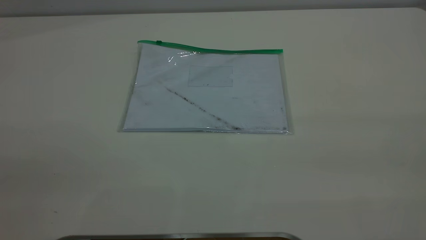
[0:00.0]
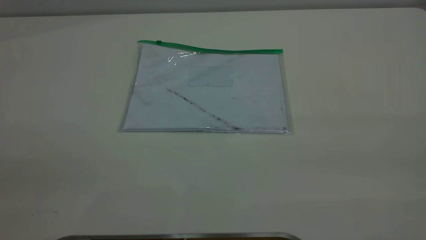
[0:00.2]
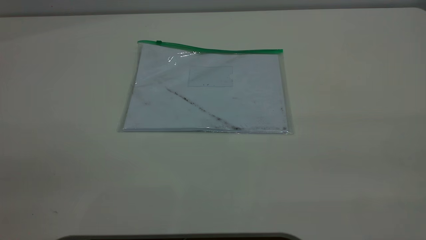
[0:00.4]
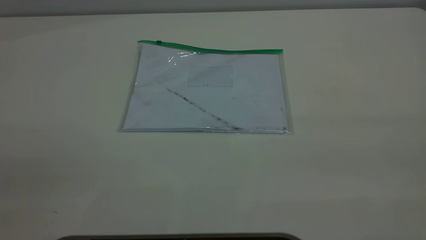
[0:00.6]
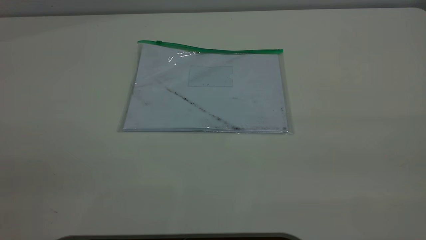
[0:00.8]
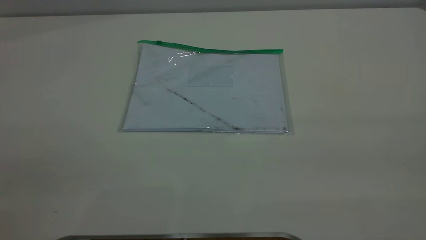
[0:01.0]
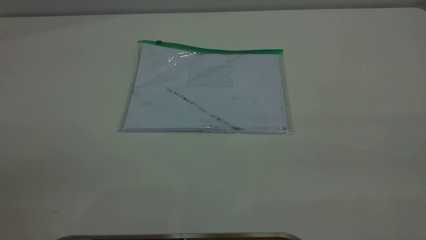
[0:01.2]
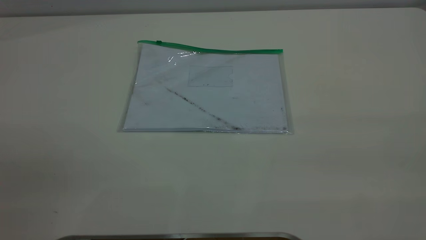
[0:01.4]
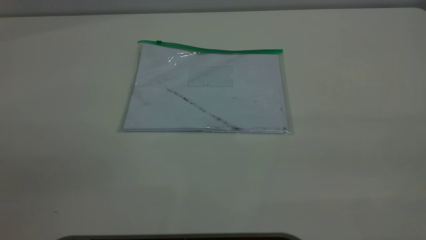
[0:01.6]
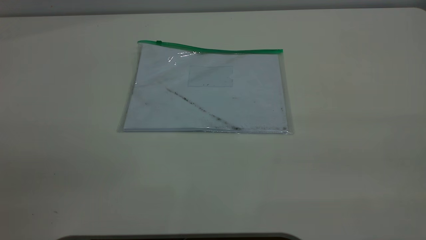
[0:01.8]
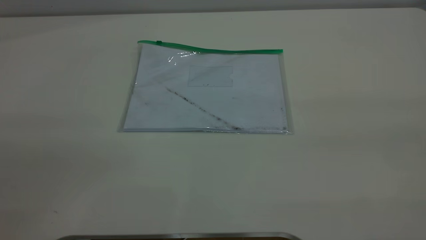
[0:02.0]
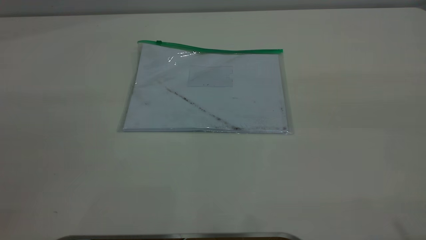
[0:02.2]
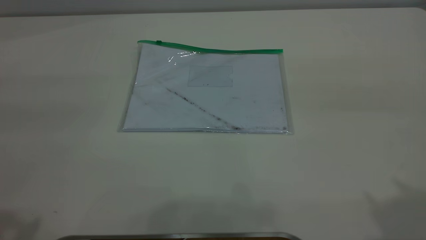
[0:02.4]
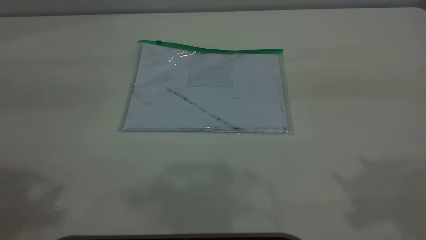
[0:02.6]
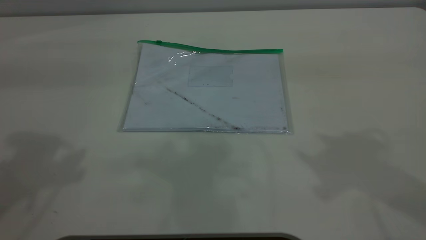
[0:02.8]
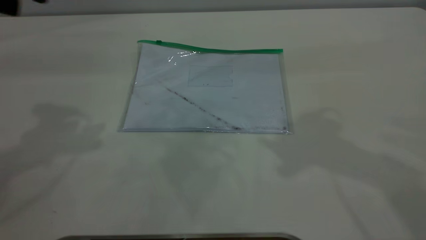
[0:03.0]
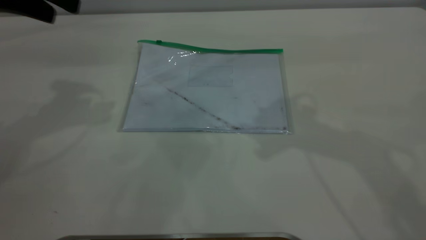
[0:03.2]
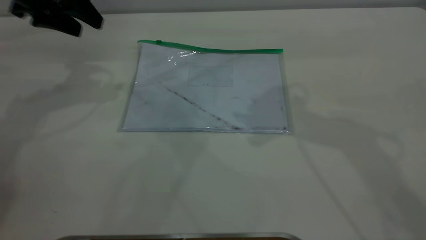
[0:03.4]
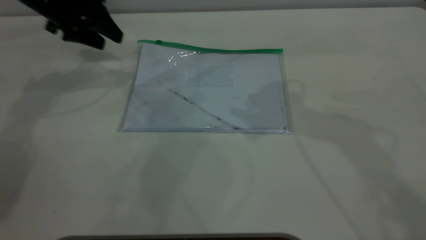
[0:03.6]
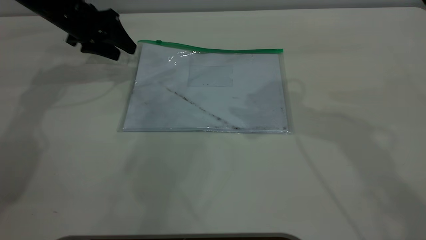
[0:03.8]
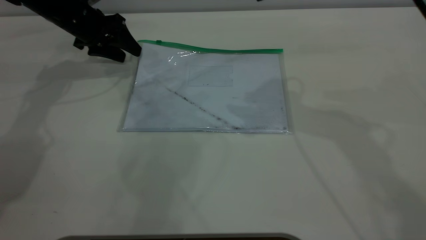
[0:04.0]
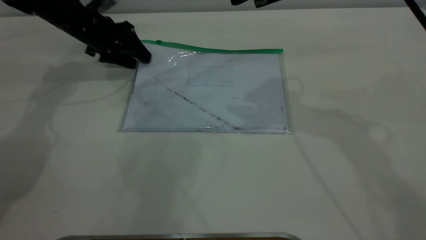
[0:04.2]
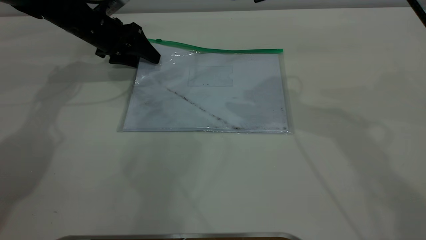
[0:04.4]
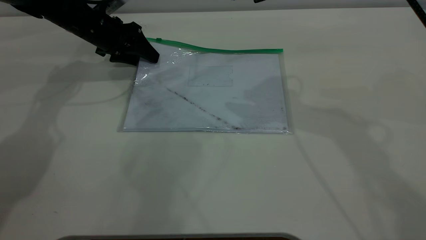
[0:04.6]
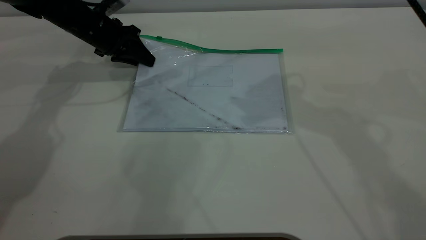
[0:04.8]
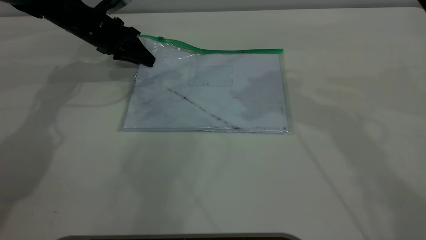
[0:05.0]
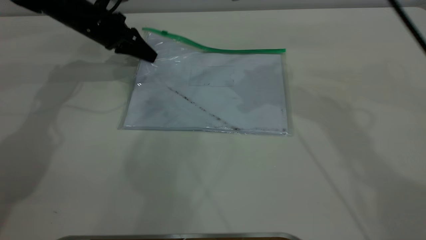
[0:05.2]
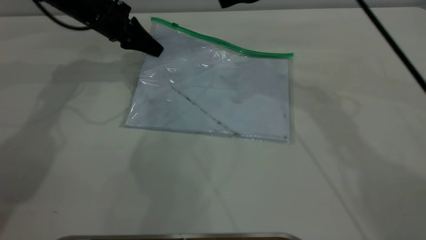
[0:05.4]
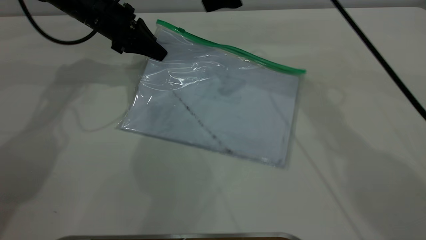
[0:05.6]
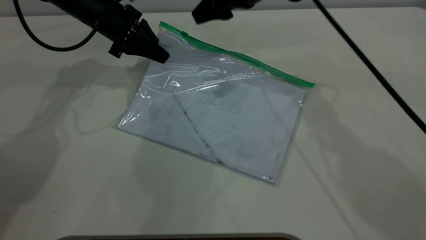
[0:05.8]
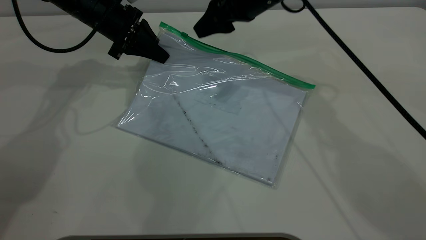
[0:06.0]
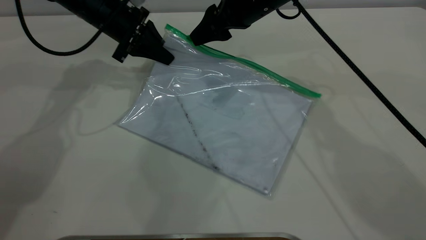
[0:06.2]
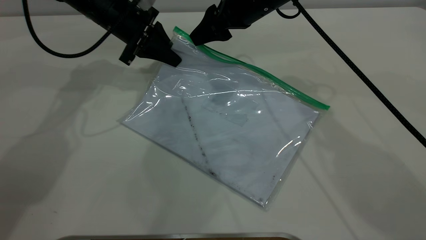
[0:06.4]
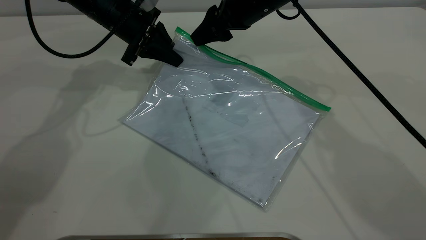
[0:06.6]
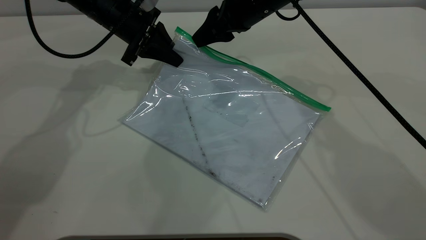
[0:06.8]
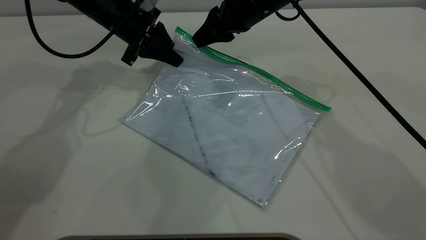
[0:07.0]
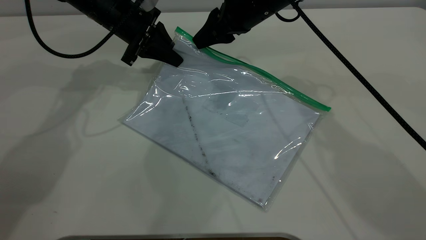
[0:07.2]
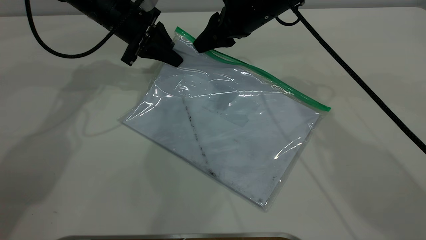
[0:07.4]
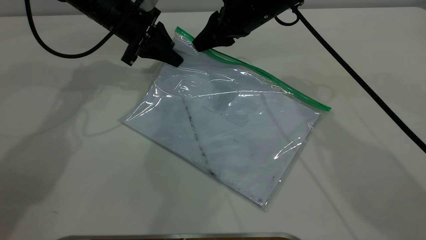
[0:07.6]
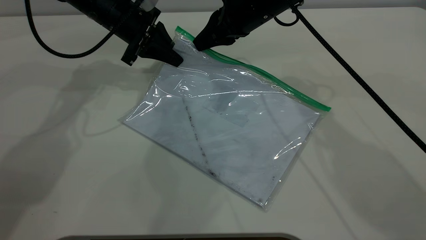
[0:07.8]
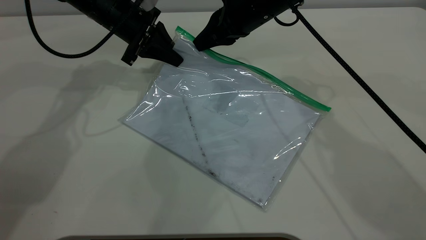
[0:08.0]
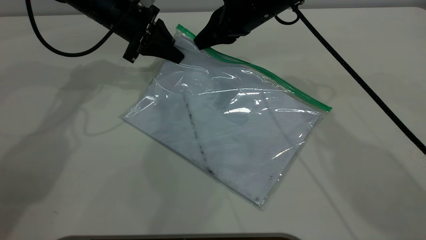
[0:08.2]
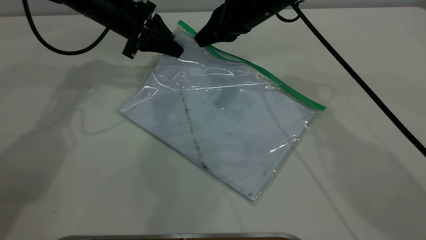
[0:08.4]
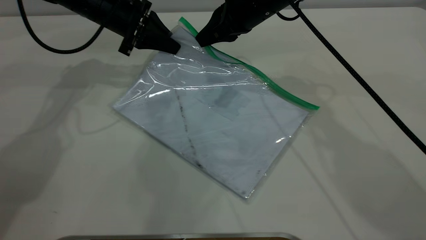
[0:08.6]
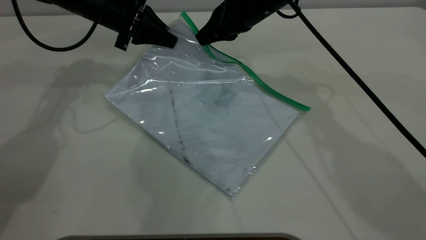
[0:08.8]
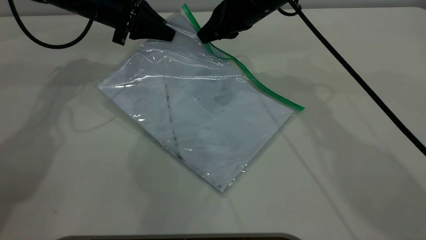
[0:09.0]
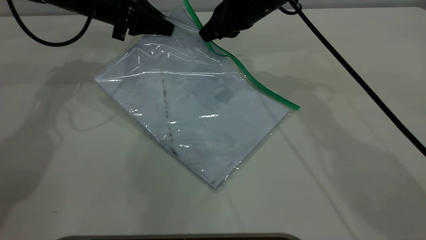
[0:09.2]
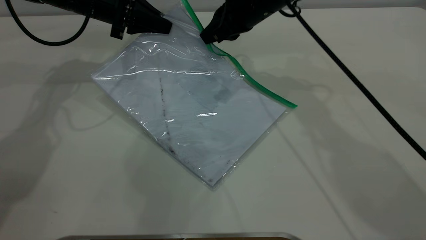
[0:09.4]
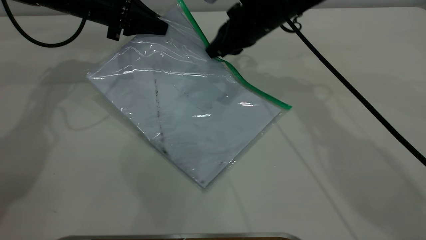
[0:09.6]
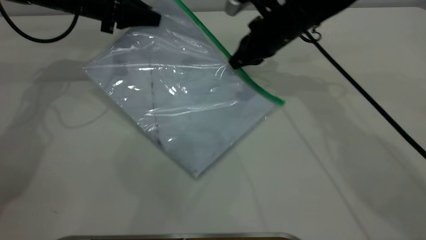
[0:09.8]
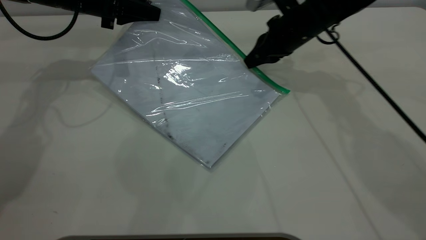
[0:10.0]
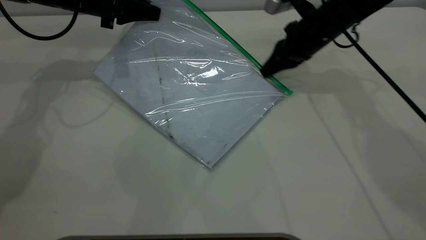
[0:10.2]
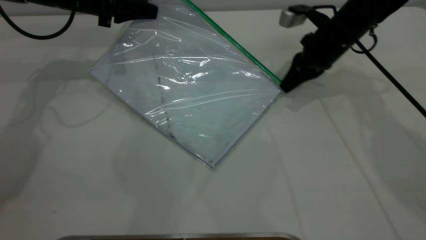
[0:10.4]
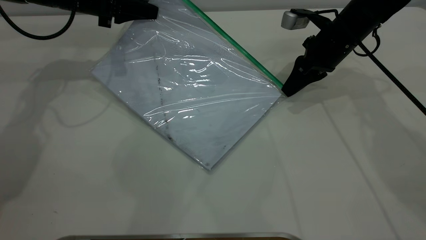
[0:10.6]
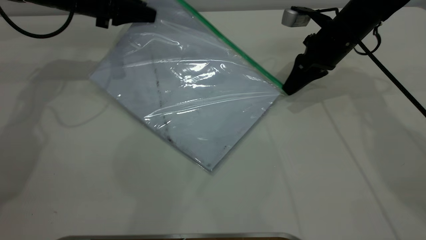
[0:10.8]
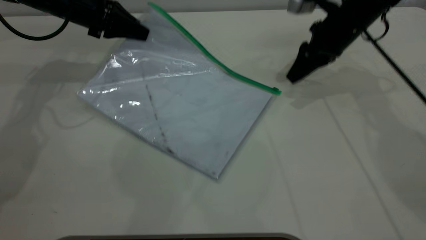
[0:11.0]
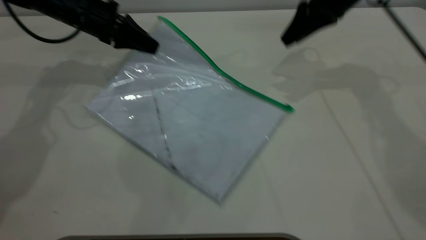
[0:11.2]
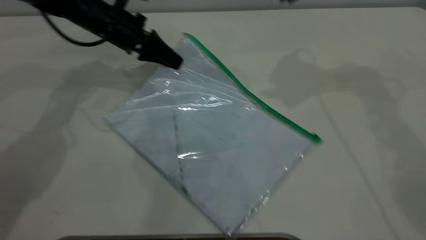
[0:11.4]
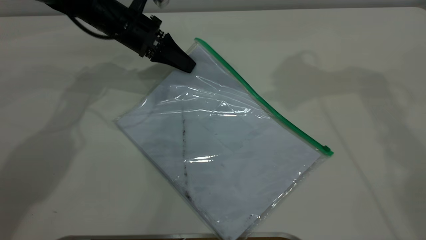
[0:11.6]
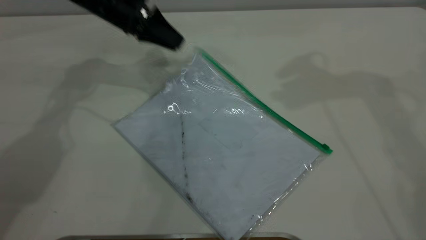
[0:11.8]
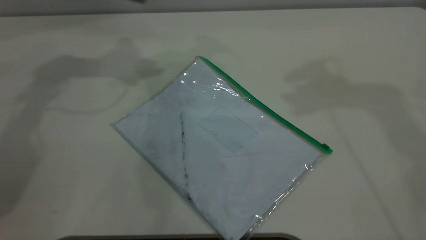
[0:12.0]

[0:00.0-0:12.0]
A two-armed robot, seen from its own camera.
Step, 0:00.0 to 0:05.2: Pick up the transparent plastic bag with the left gripper.
Step, 0:05.6 to 0:10.8: Pulling up the zipper on the transparent plastic bag with the right gripper to close it.
Step, 0:11.2 to 0:11.8: Place the transparent plastic bag.
0:01.6 to 0:03.0: The left gripper goes approximately 35 cm forward.
0:03.0 to 0:04.4: The right gripper goes some 5 cm forward, while the left gripper heads downward and forward, covering approximately 30 cm.
0:04.4 to 0:06.0: The left gripper moves roughly 5 cm, and closes up. Meanwhile the right gripper heads downward, forward and to the left, covering about 15 cm.
0:06.0 to 0:07.6: The right gripper closes its fingers.
0:07.6 to 0:09.0: The grippers make only small movements.
0:09.0 to 0:10.4: The right gripper heads to the right and downward, covering roughly 15 cm.
0:10.4 to 0:12.0: The left gripper moves upward, some 10 cm, and opens up; the right gripper is displaced upward by roughly 35 cm, and opens its fingers.
